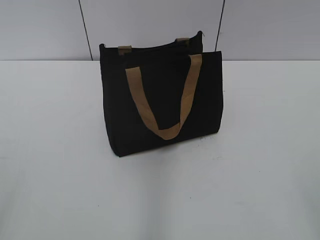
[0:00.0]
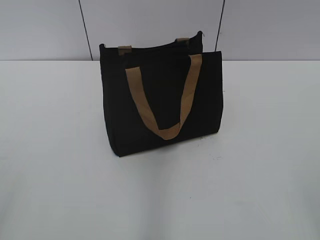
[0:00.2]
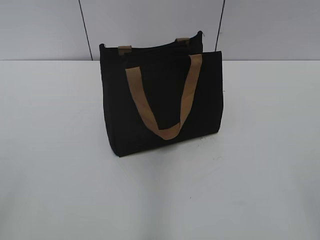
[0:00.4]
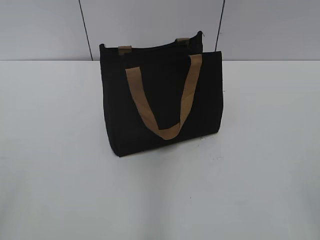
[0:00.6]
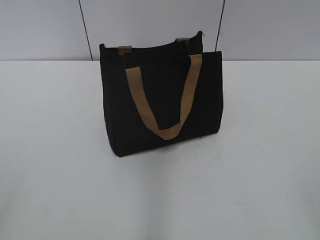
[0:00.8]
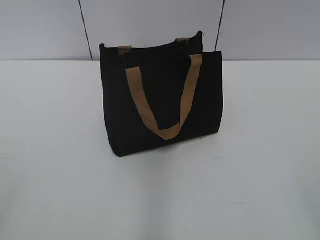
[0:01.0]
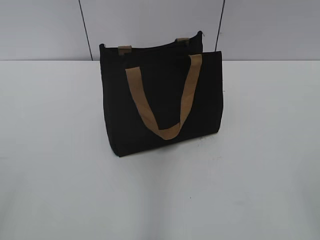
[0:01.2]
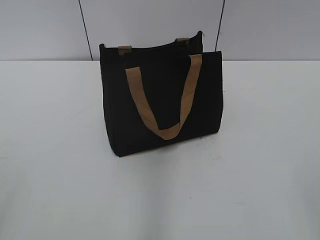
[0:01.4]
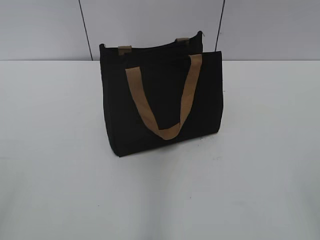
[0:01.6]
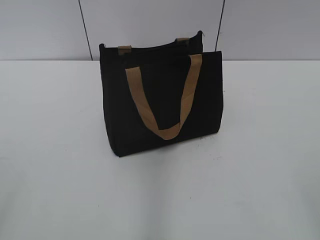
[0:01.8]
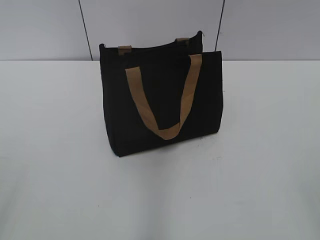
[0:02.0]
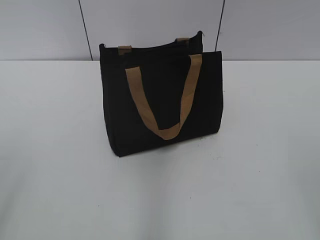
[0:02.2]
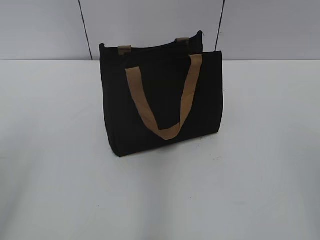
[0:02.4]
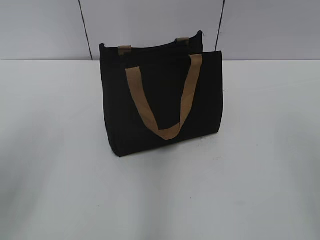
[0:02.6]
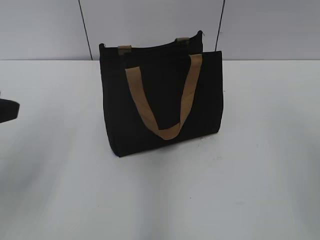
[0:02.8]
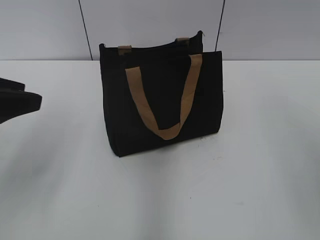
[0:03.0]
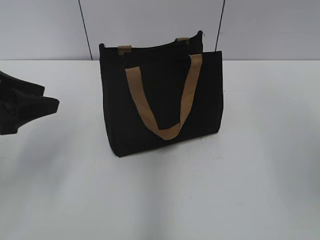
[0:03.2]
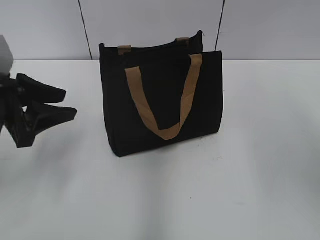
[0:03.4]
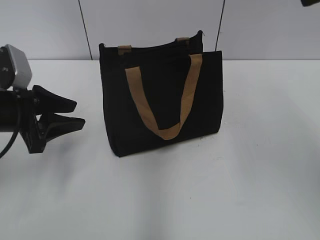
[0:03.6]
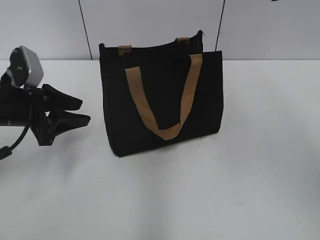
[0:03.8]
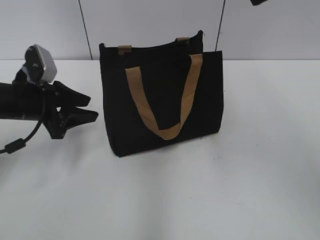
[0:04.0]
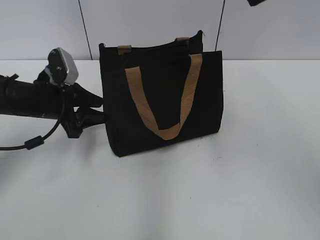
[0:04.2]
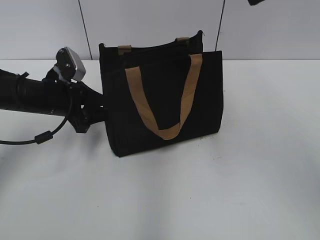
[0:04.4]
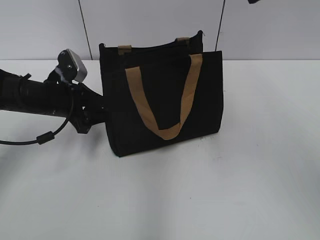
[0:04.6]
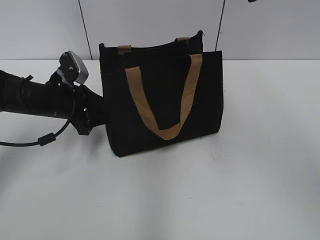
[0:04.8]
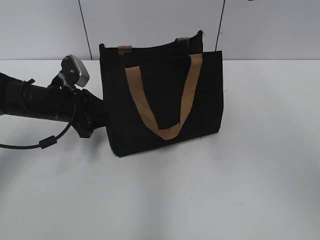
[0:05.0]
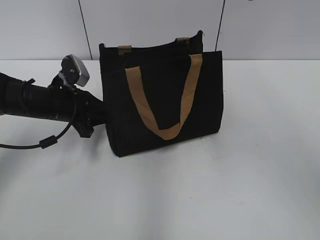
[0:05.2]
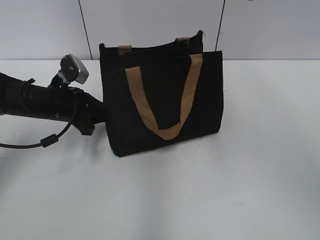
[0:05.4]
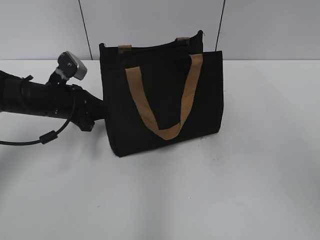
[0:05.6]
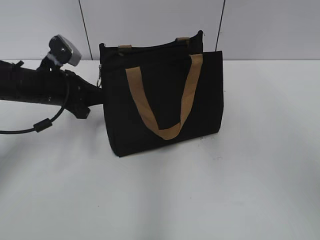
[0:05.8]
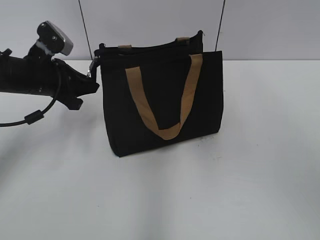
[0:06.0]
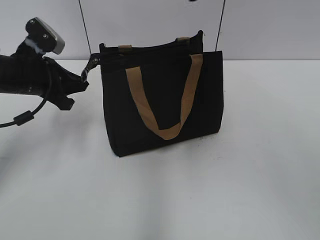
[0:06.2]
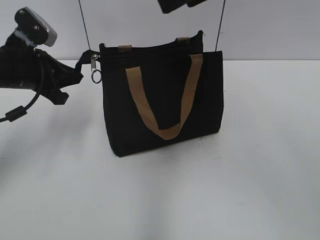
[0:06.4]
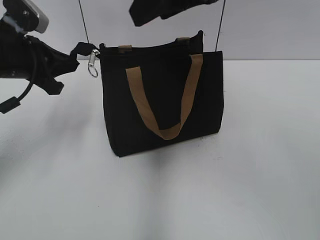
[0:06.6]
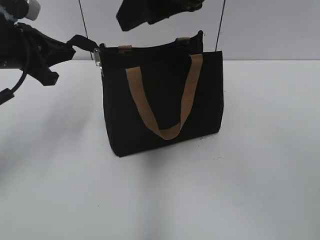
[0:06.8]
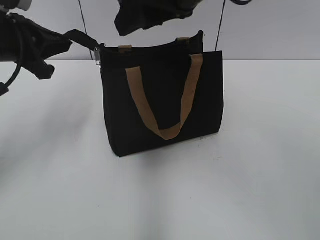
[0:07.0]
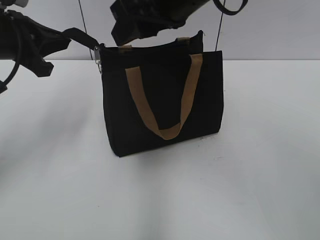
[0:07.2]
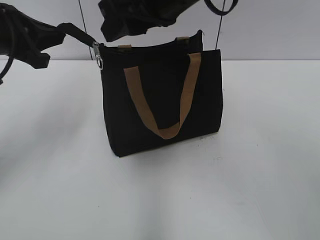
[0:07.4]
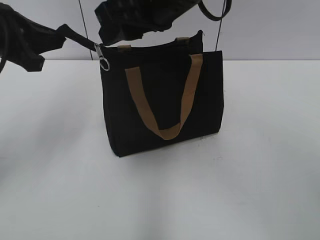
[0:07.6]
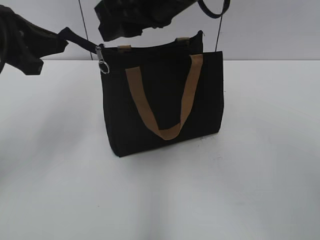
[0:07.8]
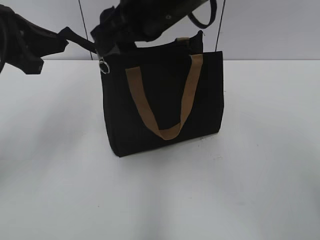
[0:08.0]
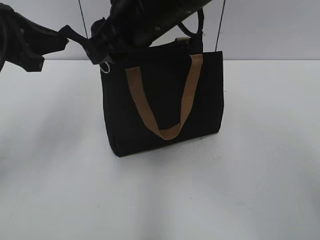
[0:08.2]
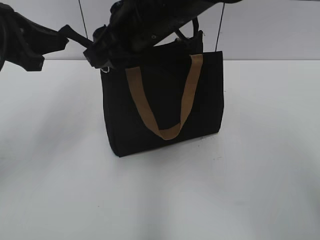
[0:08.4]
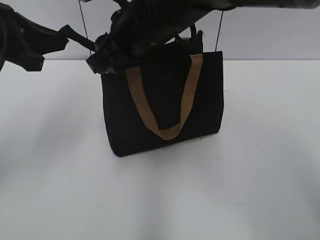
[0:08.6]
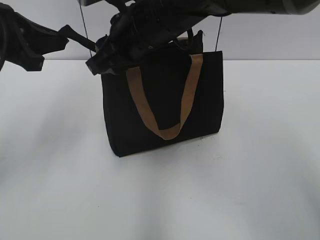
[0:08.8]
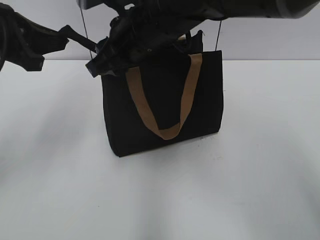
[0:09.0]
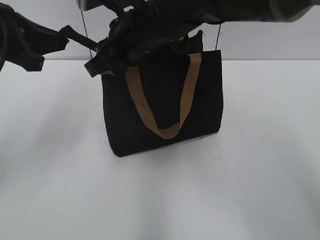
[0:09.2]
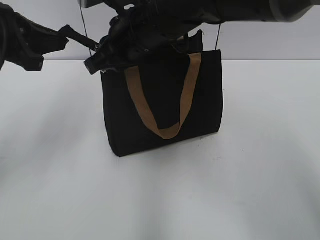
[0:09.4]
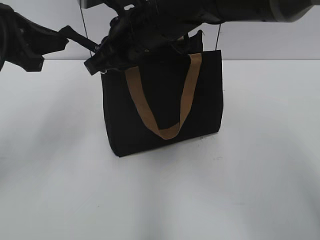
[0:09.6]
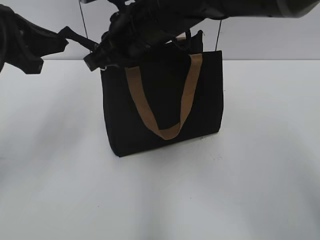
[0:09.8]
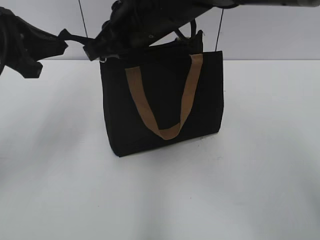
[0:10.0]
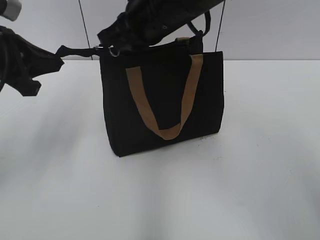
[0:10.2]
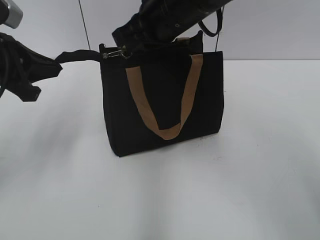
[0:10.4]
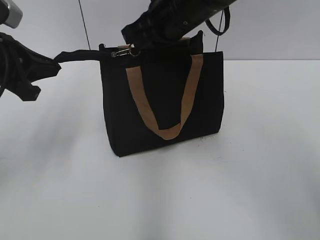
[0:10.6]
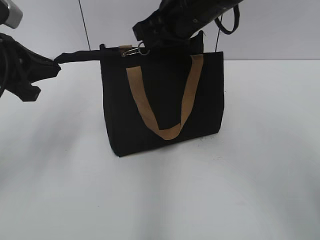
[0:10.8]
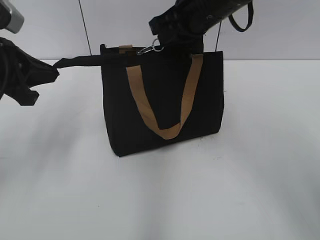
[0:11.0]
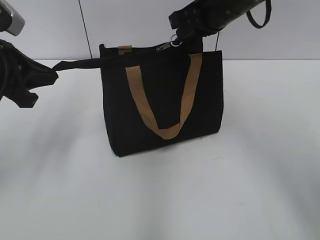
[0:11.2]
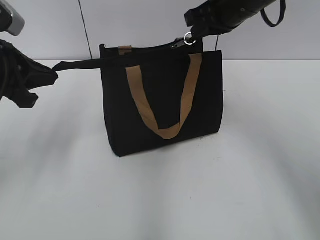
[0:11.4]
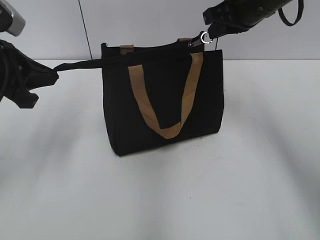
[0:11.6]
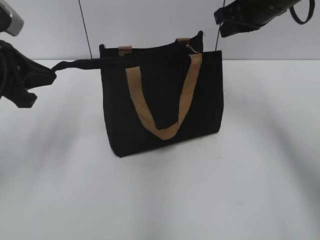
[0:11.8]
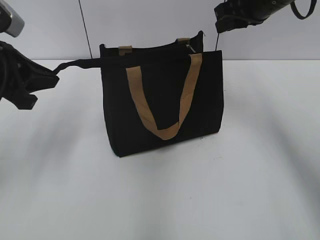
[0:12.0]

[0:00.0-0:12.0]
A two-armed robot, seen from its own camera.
Step, 0:00.0 to 0:11.6: Zip up the bag with your right hand.
0:01.6 to 0:03.0: The left gripper travels forward by approximately 20 cm.
0:03.0 to 0:04.4: The left gripper heads forward and downward, covering some 20 cm.
0:04.4 to 0:06.0: The left gripper closes up.
0:06.0 to 0:07.6: The right gripper goes approximately 15 cm to the left and downward. Meanwhile the left gripper travels upward and backward by about 10 cm.
0:07.6 to 0:09.0: The right gripper shifts about 5 cm downward.
0:09.0 to 0:10.4: The right gripper closes up.
0:10.4 to 0:12.0: The right gripper moves to the right, approximately 15 cm.

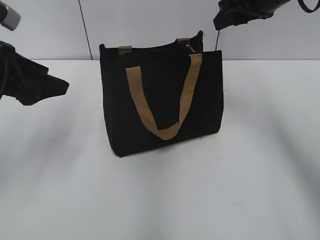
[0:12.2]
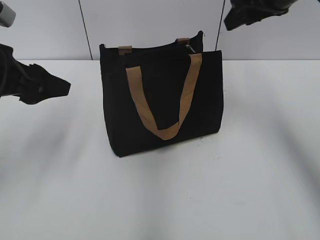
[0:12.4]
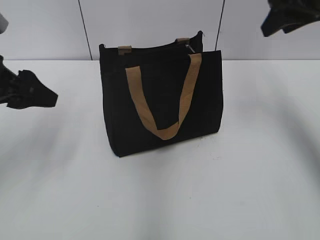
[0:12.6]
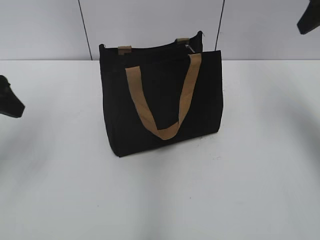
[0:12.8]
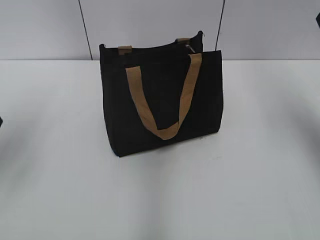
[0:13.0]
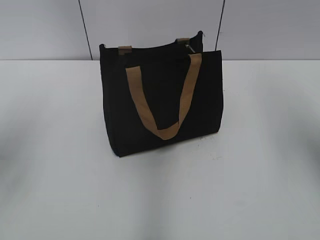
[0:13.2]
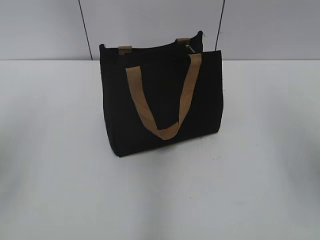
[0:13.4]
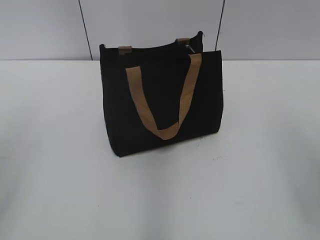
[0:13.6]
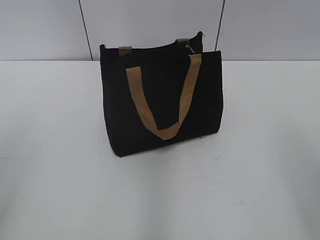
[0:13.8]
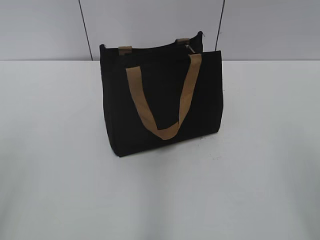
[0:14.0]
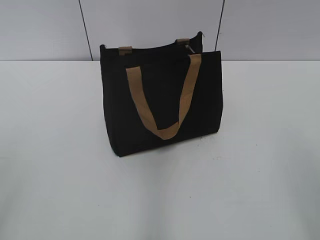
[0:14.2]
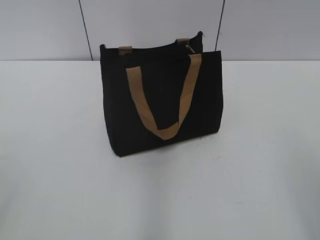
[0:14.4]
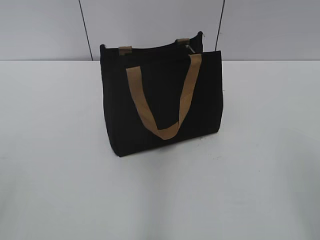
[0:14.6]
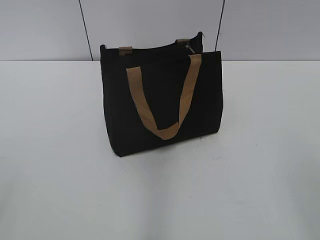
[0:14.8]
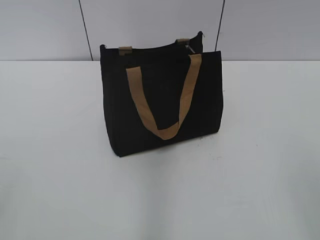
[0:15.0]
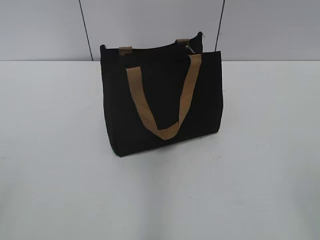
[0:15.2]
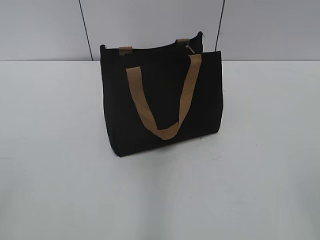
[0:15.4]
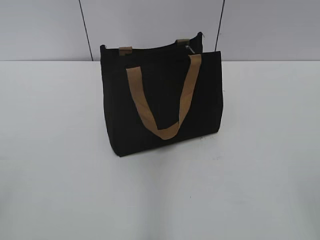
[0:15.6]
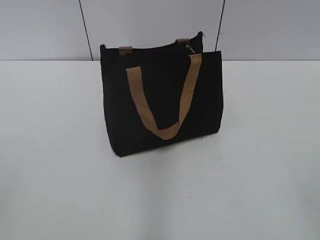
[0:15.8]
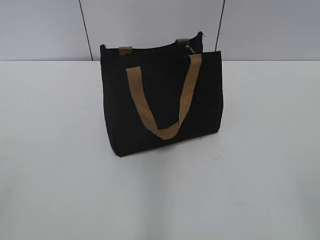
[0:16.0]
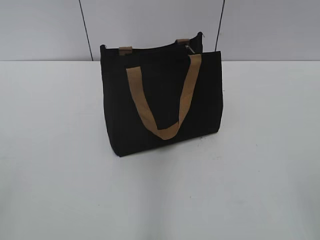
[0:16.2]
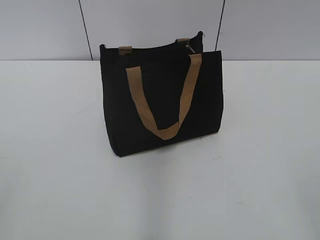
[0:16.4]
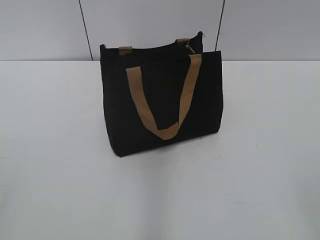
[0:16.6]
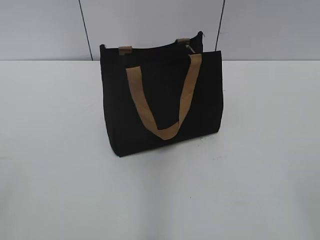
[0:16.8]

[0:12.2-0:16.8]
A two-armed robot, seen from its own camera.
0:12.2 to 0:13.8: The right gripper moves backward, some 30 cm. The left gripper moves backward, roughly 15 cm.

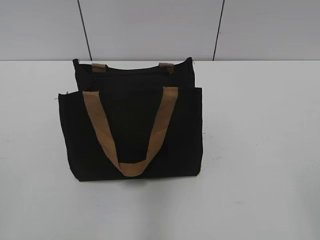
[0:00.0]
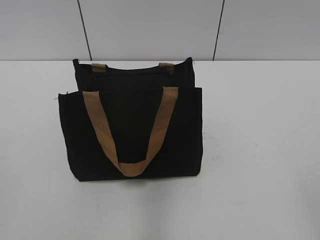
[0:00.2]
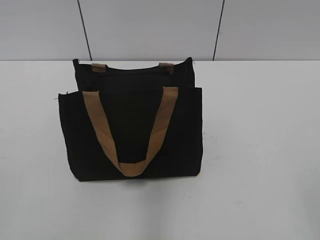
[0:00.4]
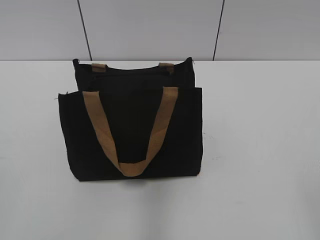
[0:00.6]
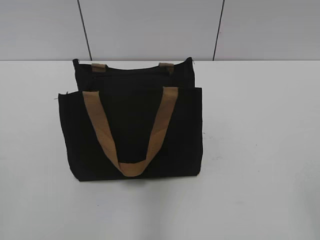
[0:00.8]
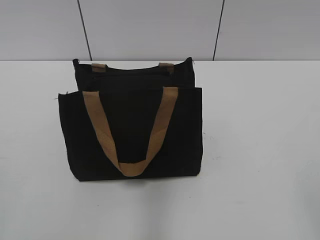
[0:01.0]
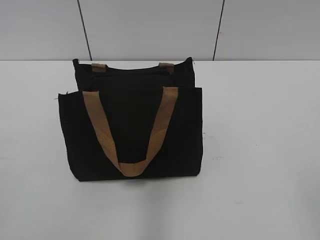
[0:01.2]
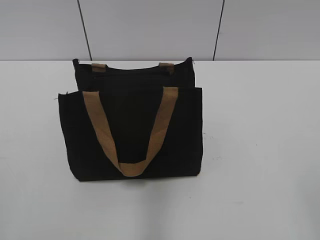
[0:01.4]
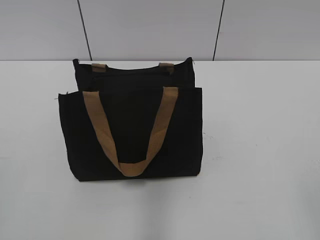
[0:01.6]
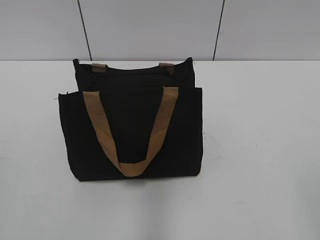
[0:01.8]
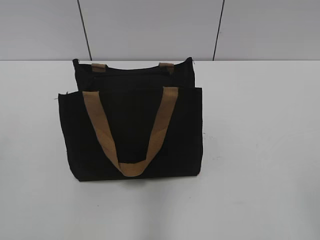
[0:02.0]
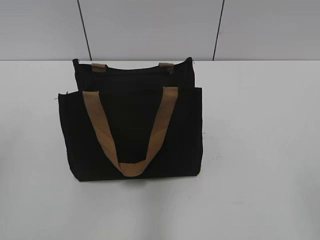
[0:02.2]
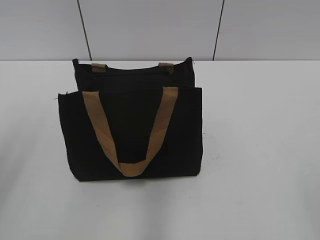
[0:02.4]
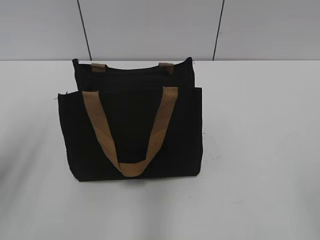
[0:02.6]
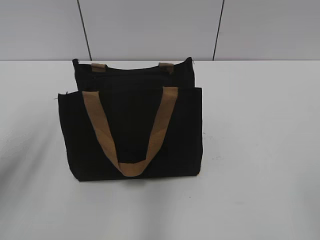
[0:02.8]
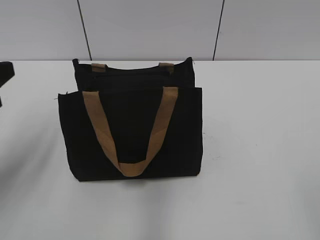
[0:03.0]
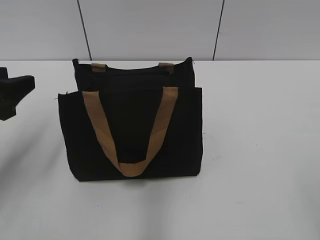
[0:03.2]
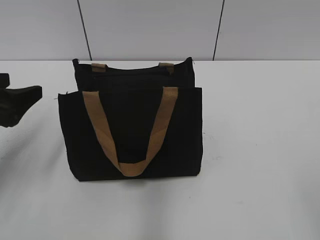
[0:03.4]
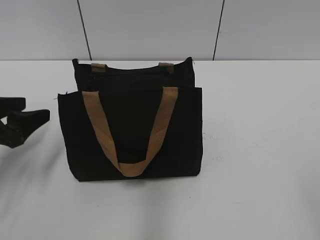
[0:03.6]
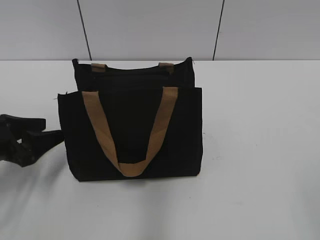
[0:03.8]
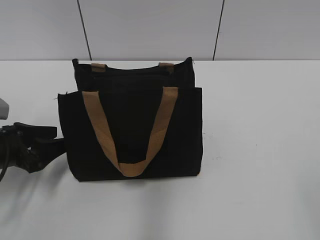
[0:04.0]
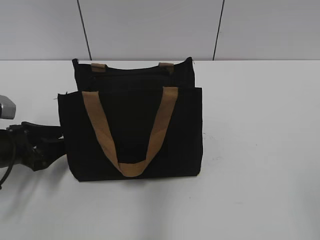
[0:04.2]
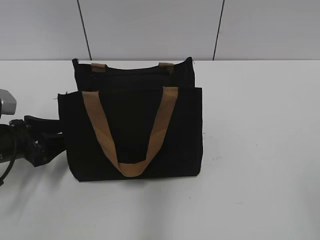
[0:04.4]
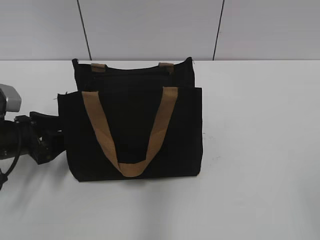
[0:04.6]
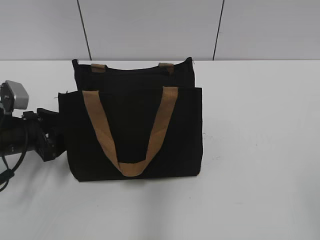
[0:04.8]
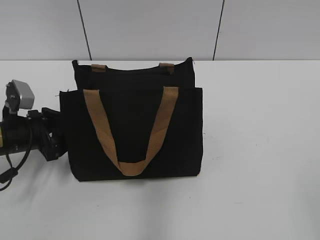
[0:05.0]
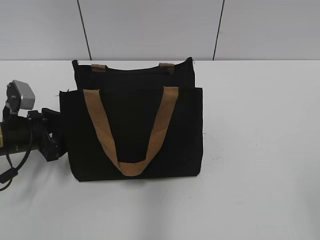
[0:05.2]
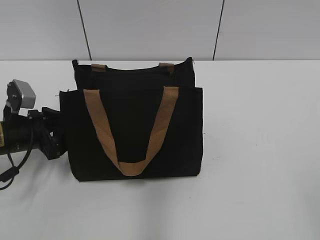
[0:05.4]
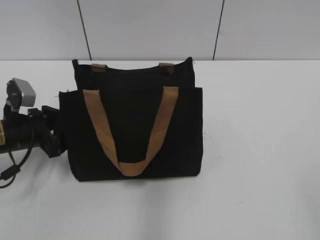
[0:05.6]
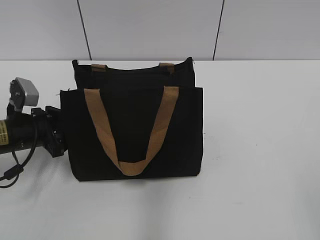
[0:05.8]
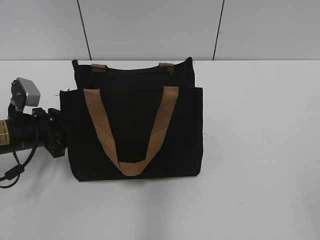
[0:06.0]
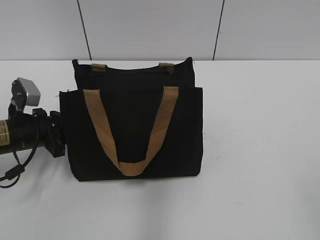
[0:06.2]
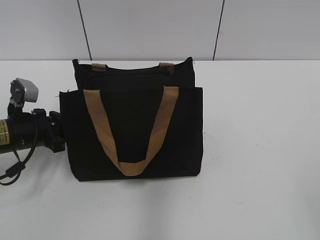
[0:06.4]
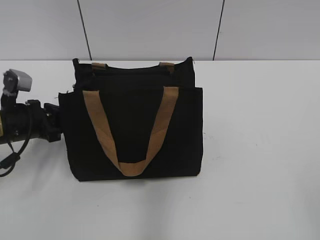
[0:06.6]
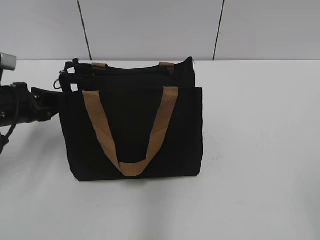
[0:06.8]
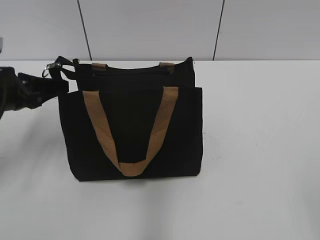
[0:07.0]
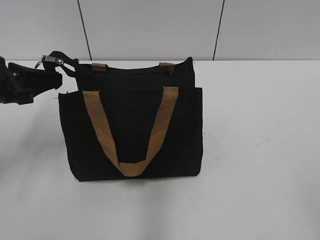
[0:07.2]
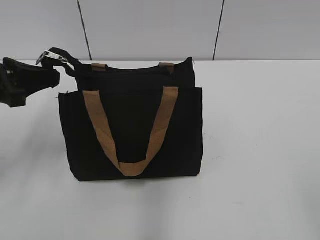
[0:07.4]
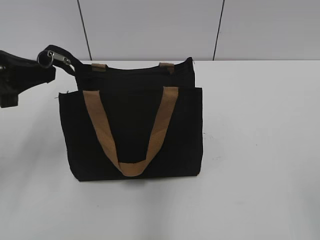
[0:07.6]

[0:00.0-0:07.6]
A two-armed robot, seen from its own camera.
0:01.6 to 0:03.0: The left gripper travels forward by roughly 20 cm.
0:03.0 to 0:04.6: The left gripper heads downward and forward, covering approximately 20 cm, and opens.
0:04.6 to 0:06.0: There are only small adjustments of the grippers.
0:06.0 to 0:07.6: The left gripper shifts about 15 cm upward, and closes.
